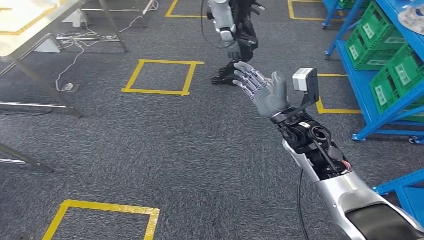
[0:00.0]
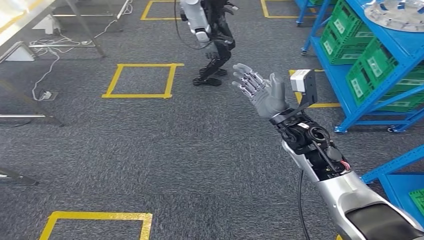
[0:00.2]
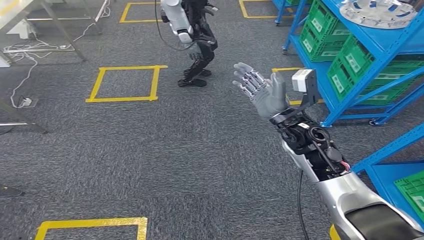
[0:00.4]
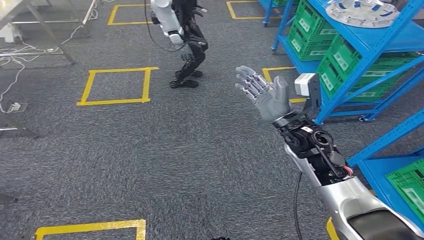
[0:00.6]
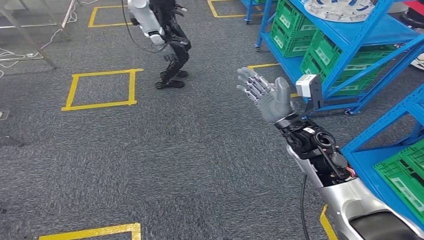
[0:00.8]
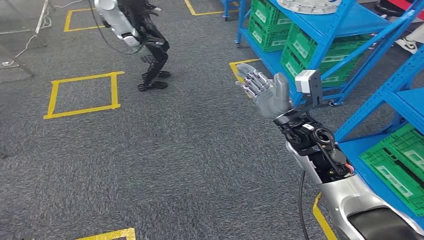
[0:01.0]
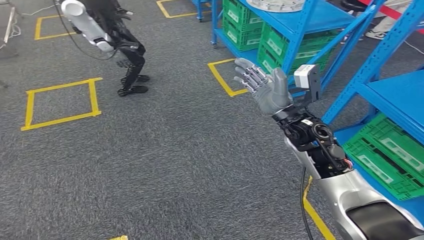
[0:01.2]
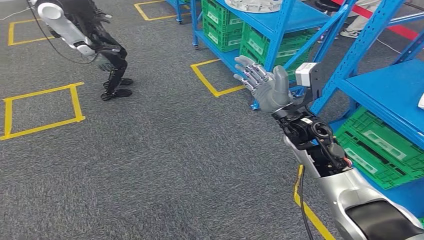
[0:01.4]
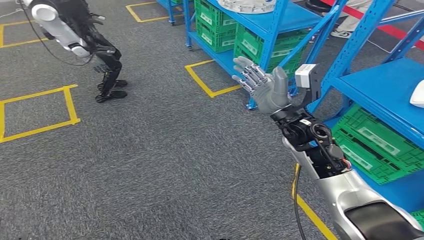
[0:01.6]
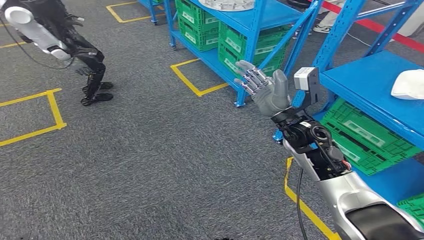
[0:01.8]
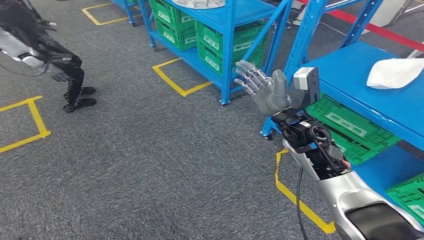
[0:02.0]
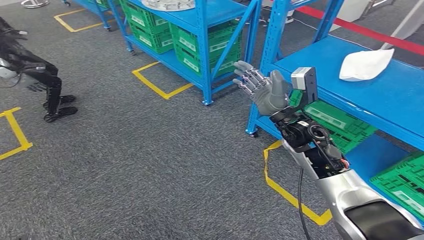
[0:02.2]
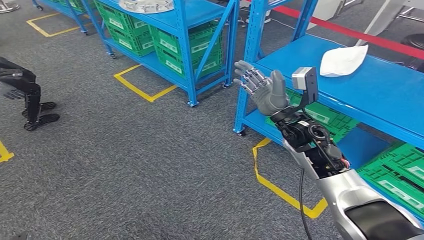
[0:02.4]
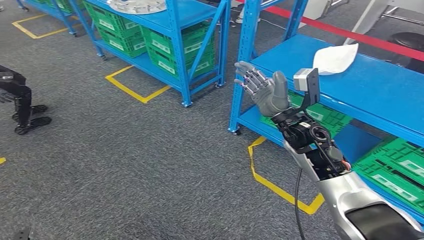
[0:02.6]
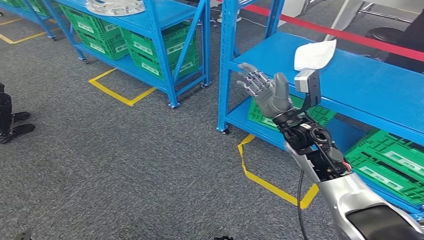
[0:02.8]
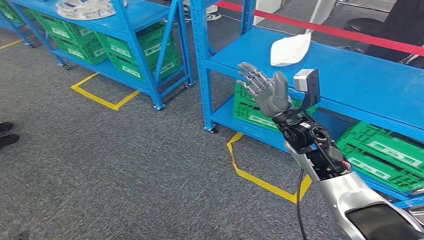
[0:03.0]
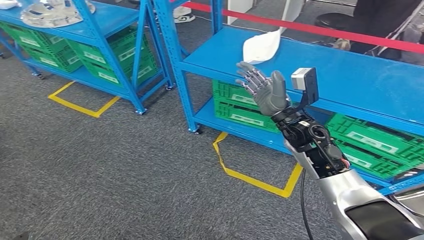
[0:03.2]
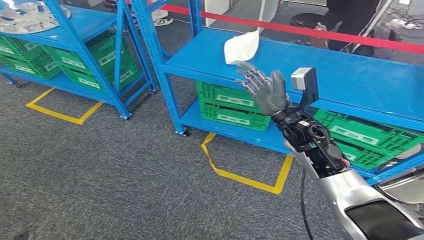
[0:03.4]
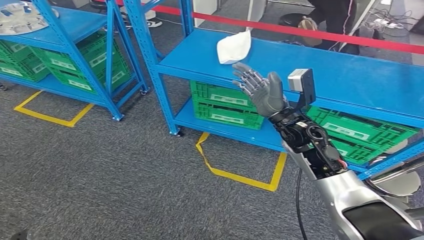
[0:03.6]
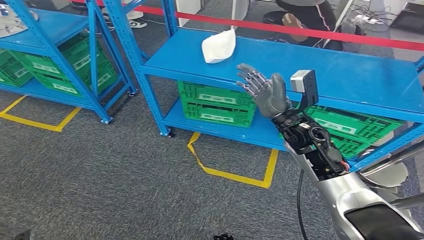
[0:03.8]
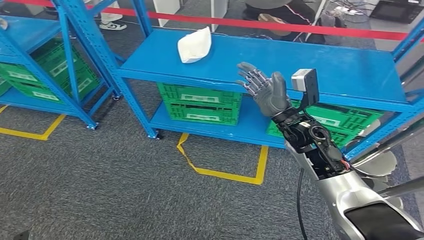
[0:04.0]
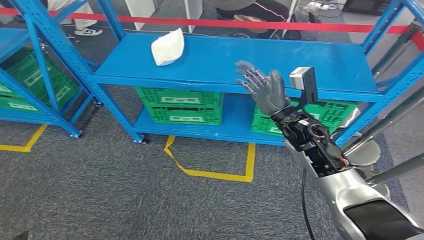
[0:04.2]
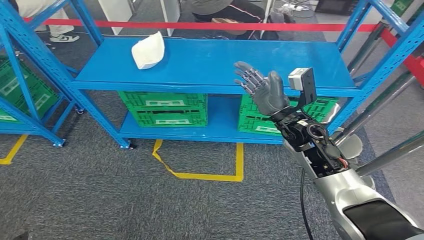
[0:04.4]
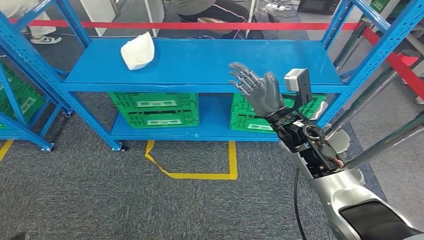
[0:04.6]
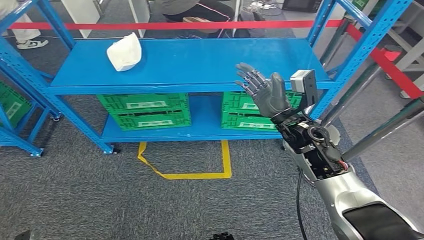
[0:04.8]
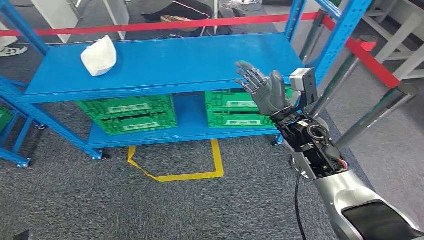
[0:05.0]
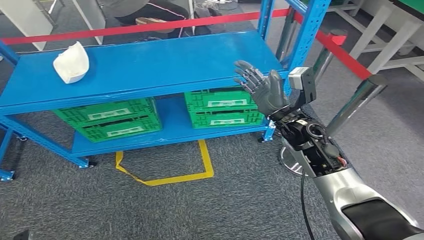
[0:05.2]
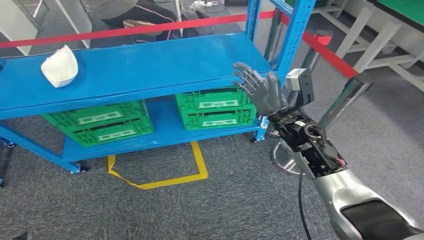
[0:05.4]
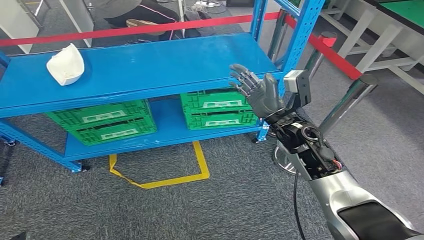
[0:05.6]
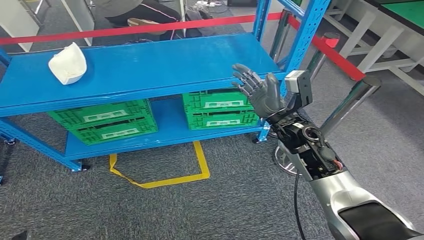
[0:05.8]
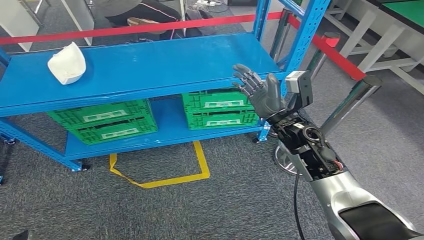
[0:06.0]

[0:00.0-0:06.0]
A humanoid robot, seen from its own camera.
Step, 0:00.0 to 0:06.0: Return to the initial position at the workbench.

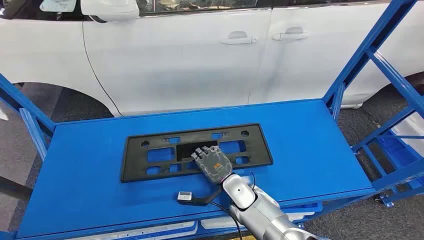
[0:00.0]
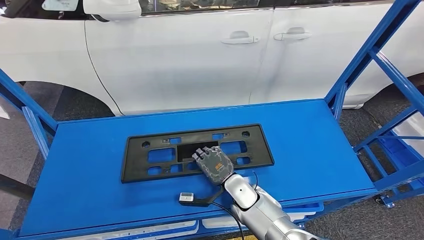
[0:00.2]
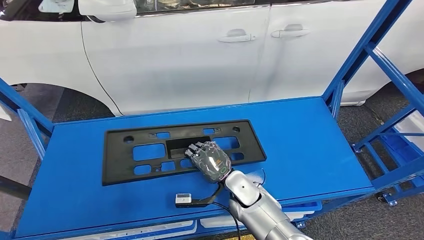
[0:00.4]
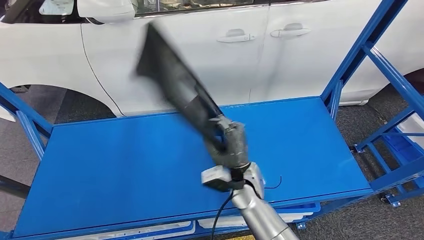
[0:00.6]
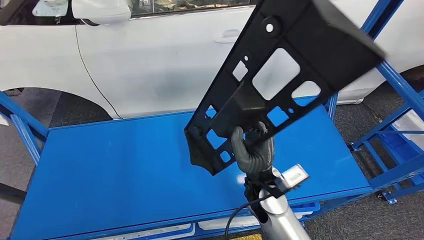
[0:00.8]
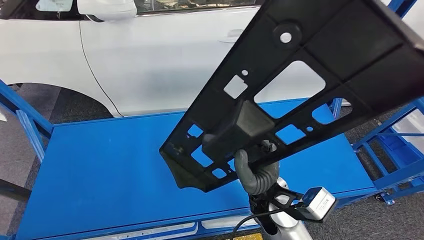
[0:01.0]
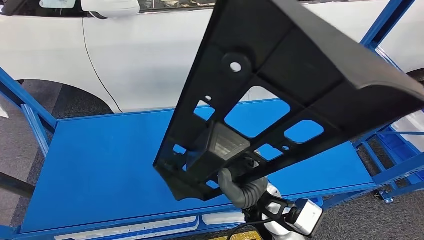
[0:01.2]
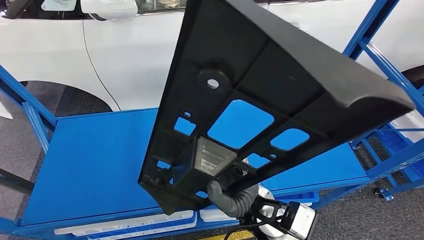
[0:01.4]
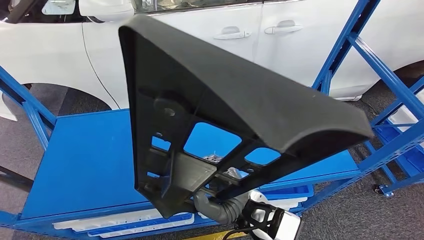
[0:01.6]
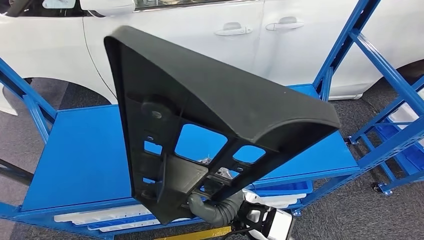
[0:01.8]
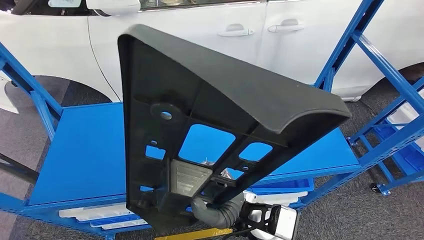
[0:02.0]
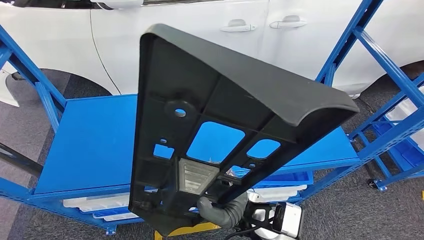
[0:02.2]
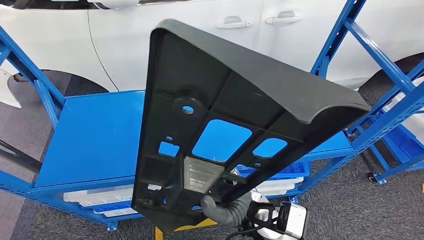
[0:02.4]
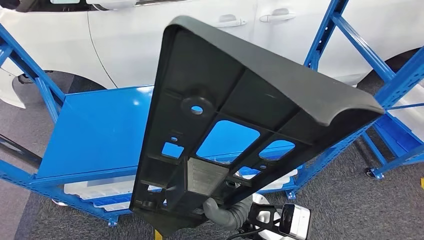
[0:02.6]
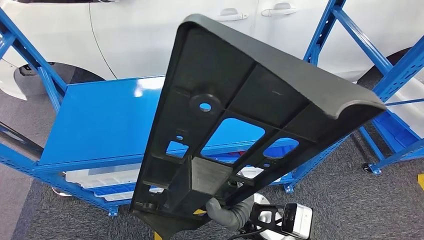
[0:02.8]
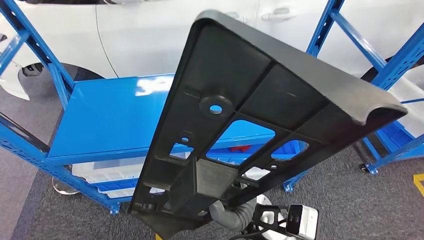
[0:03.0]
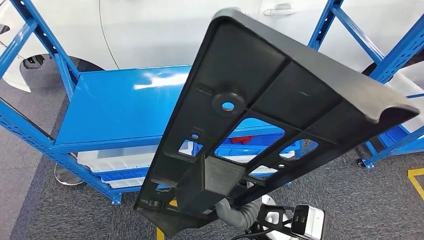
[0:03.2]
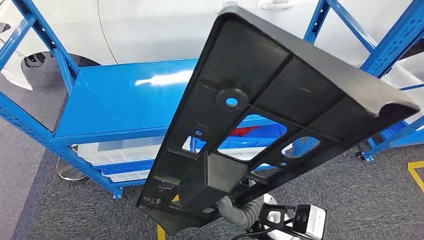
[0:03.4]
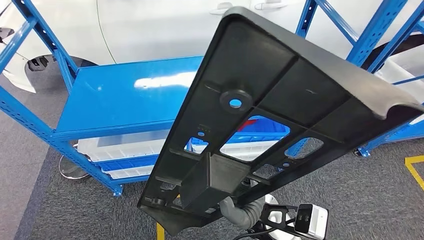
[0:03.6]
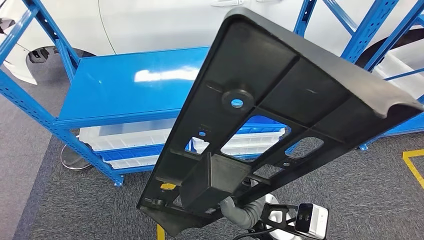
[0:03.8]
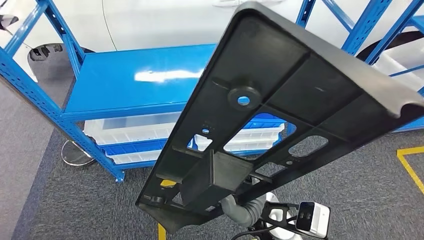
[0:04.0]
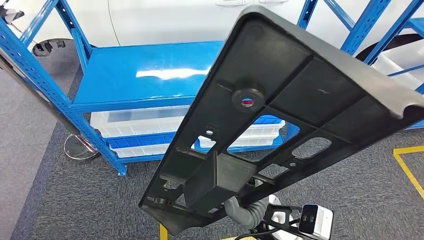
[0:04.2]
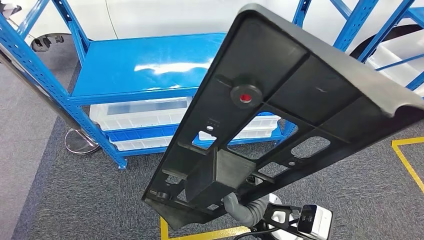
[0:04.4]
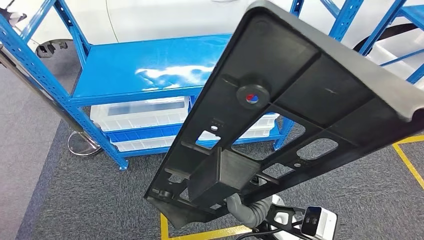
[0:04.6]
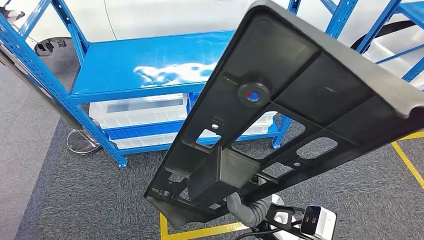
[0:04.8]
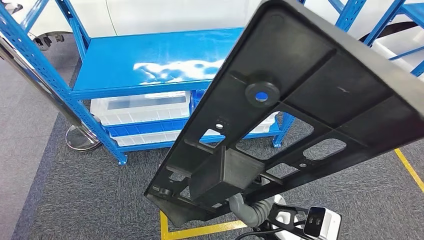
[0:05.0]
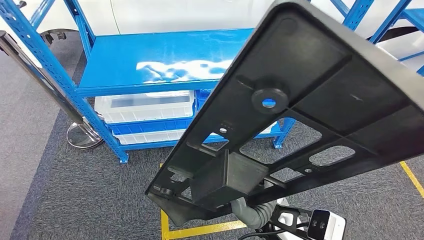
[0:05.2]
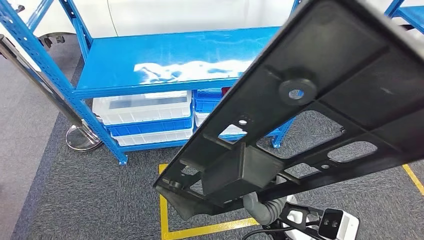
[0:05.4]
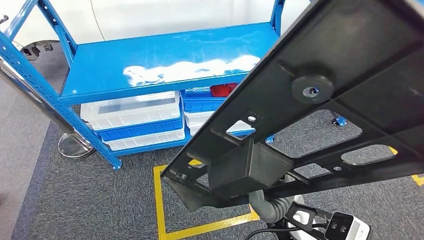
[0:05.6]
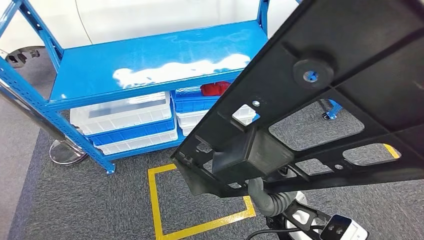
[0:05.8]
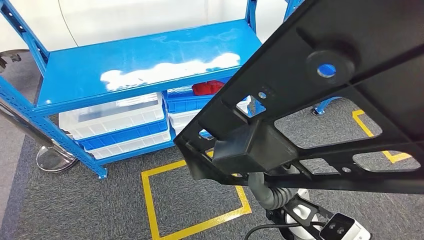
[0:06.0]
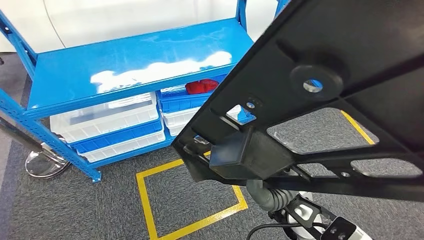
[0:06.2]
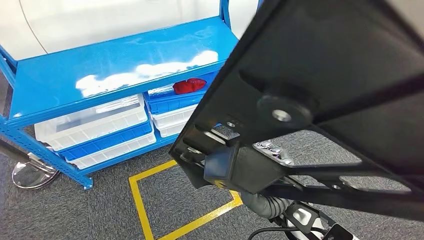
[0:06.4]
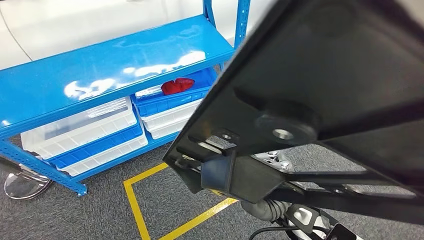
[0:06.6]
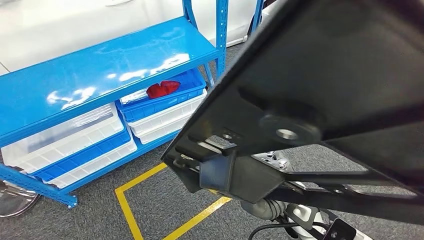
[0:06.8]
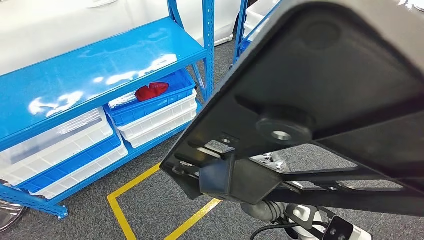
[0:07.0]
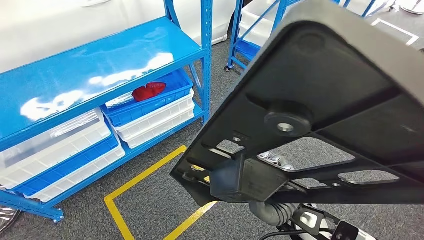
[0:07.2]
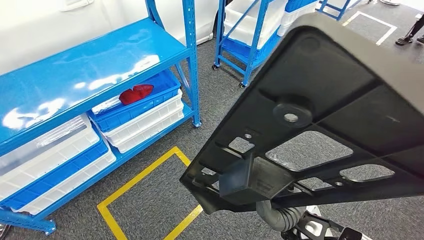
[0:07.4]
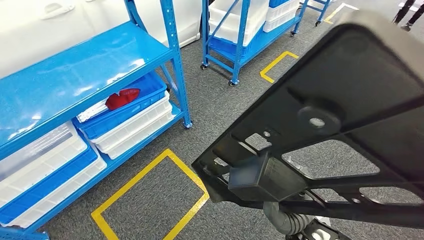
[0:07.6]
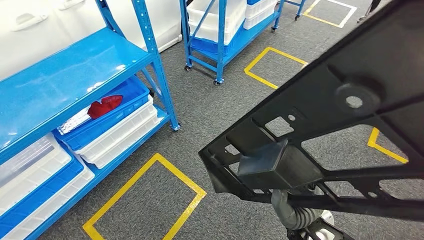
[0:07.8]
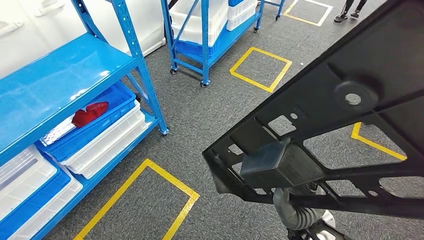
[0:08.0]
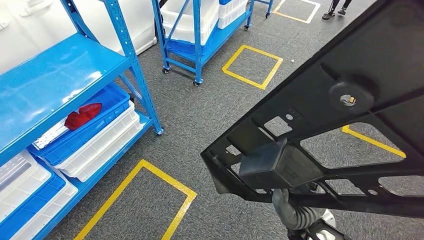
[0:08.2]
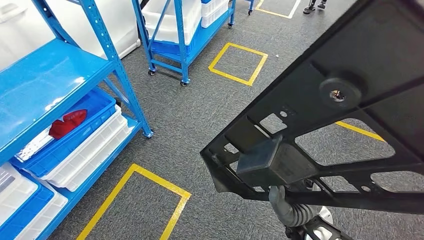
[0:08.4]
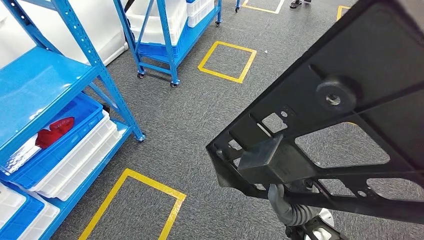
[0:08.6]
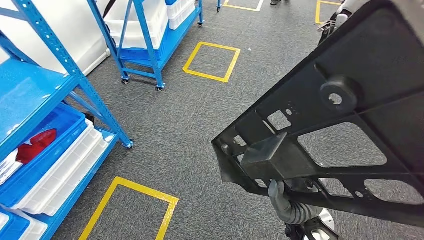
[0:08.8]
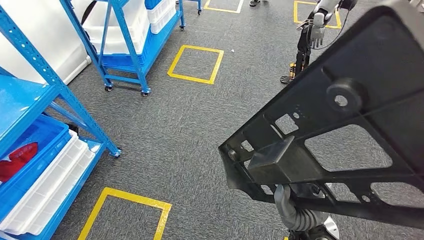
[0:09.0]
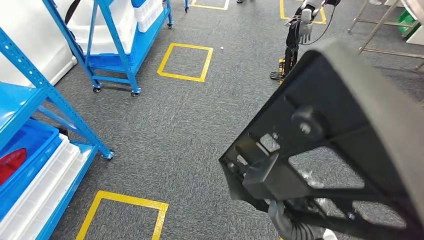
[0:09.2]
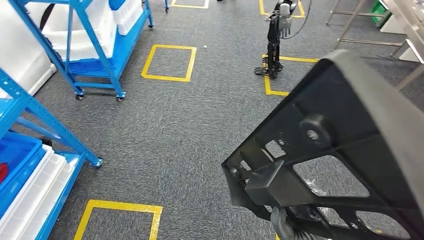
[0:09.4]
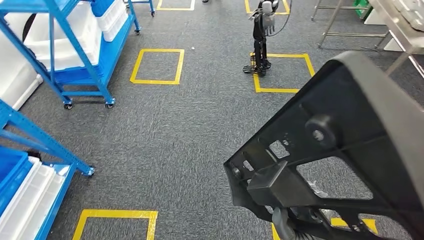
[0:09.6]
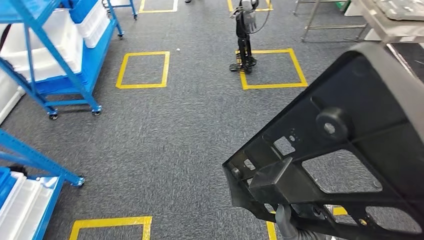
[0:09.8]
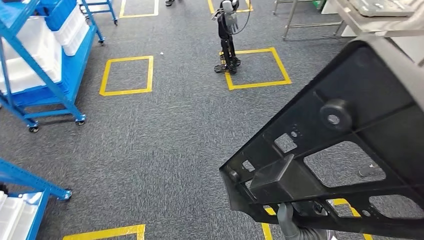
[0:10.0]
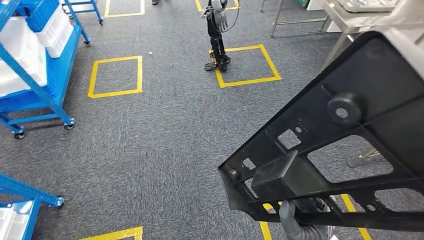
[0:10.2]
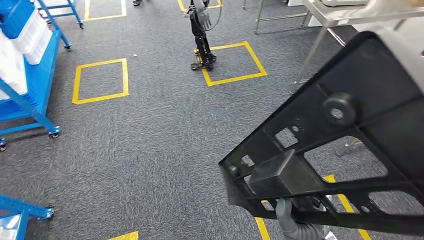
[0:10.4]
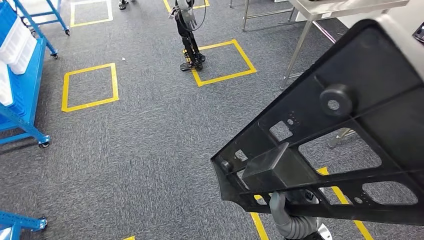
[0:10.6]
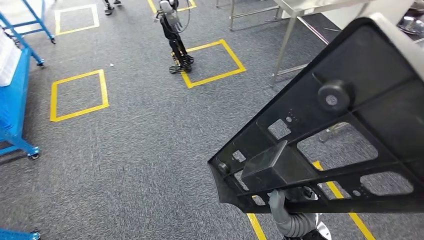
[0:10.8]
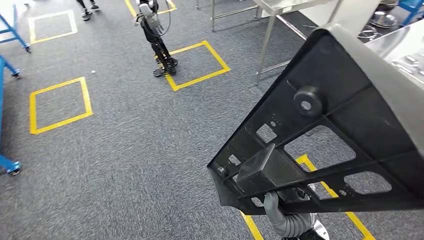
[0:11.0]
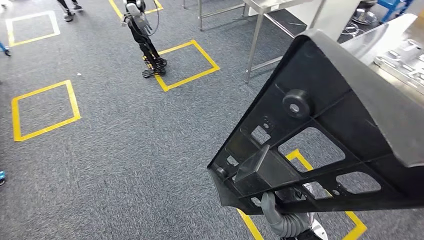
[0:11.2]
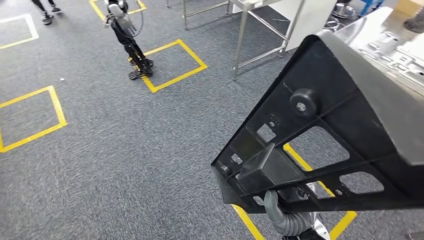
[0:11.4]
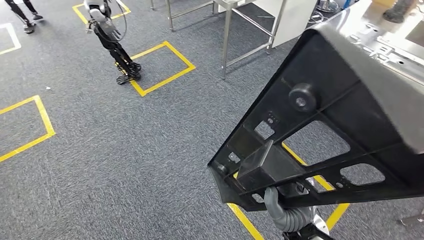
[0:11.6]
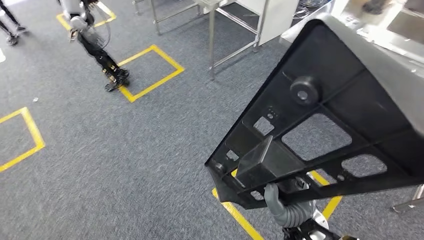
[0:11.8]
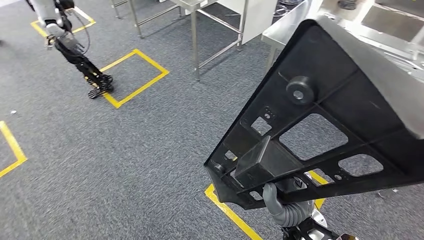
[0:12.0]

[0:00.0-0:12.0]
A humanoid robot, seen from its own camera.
Step, 0:00.0 to 0:01.8: Pick up the small component from the shelf.
